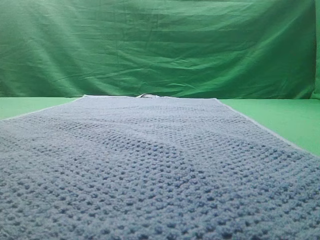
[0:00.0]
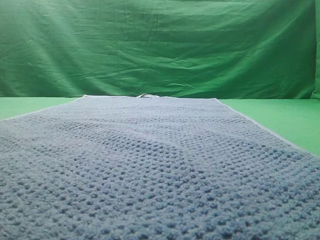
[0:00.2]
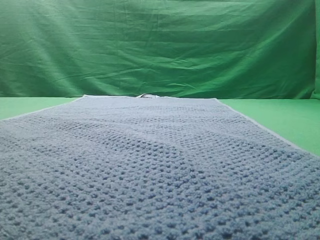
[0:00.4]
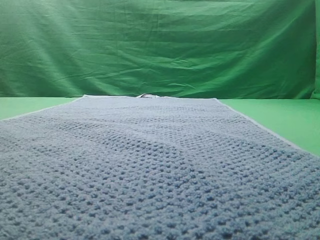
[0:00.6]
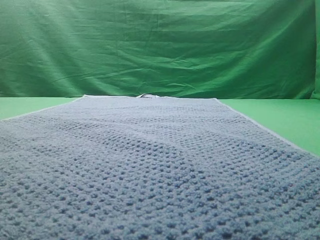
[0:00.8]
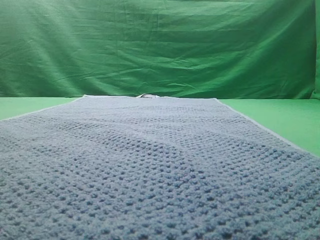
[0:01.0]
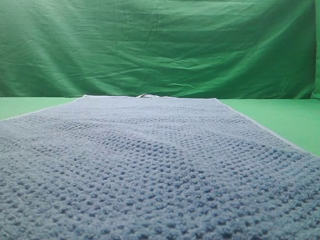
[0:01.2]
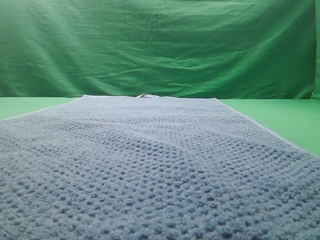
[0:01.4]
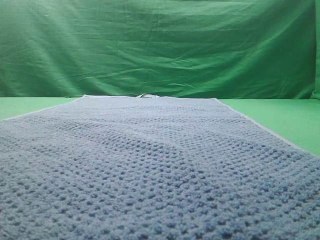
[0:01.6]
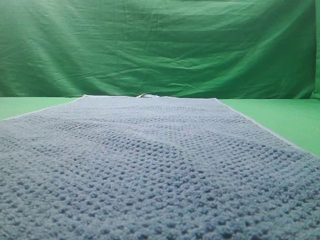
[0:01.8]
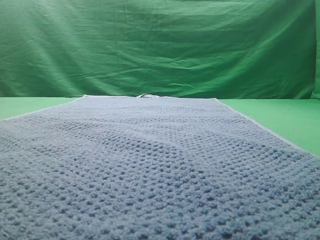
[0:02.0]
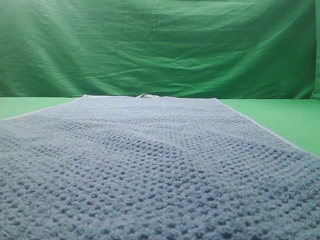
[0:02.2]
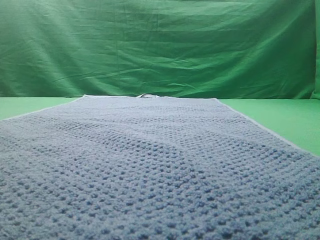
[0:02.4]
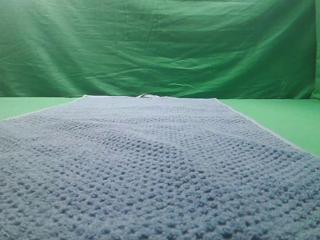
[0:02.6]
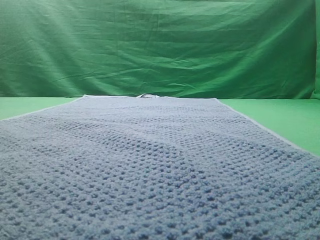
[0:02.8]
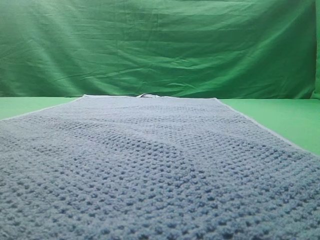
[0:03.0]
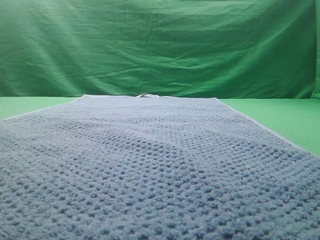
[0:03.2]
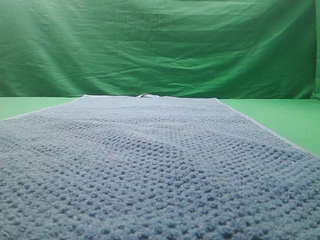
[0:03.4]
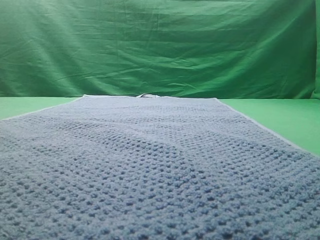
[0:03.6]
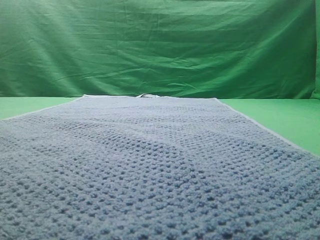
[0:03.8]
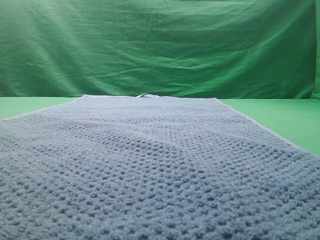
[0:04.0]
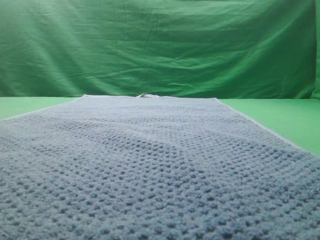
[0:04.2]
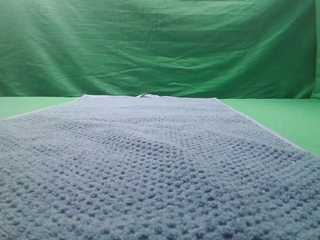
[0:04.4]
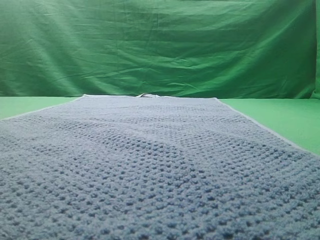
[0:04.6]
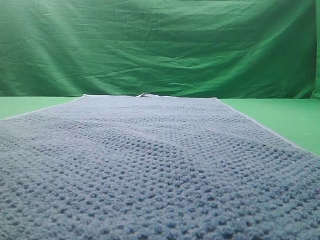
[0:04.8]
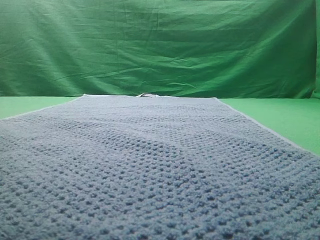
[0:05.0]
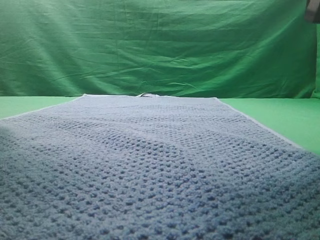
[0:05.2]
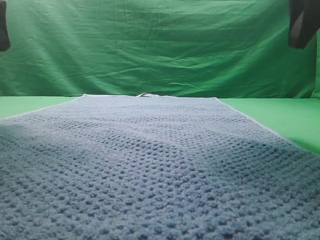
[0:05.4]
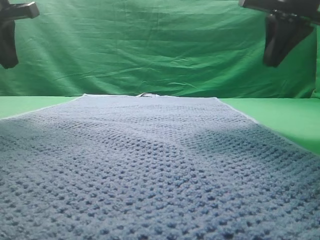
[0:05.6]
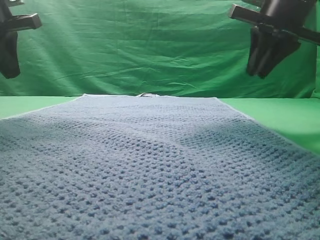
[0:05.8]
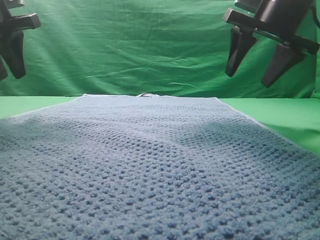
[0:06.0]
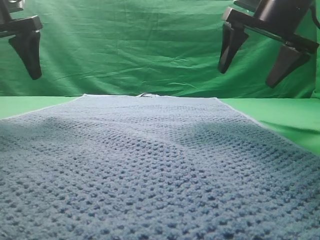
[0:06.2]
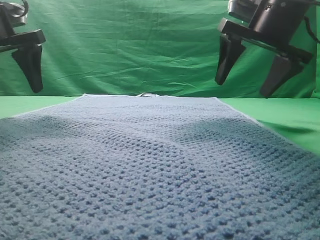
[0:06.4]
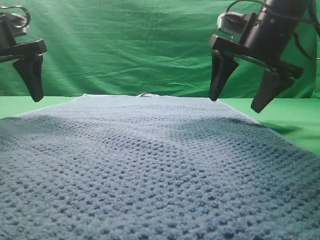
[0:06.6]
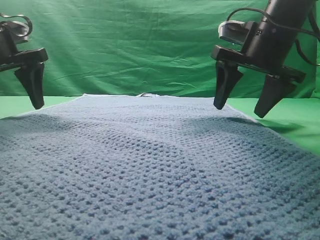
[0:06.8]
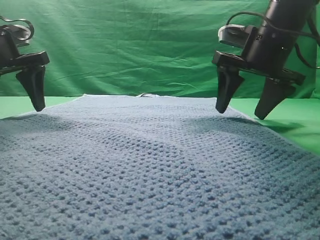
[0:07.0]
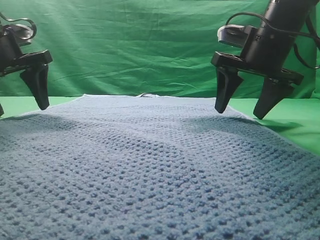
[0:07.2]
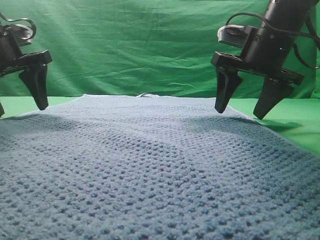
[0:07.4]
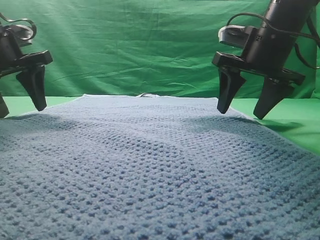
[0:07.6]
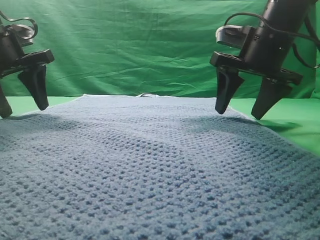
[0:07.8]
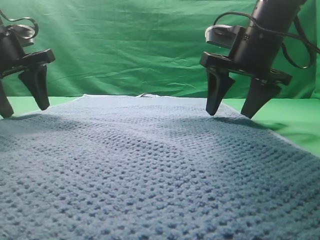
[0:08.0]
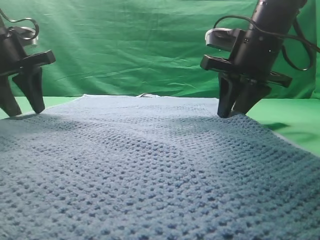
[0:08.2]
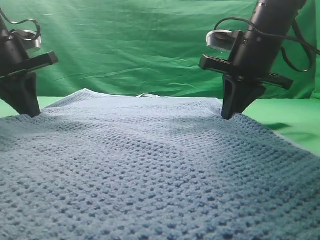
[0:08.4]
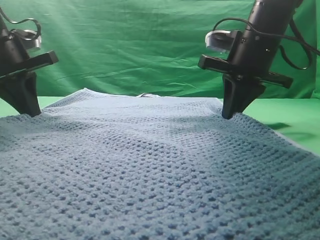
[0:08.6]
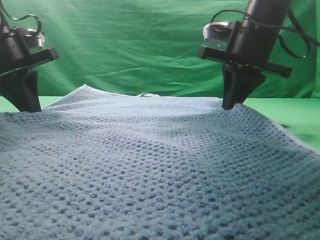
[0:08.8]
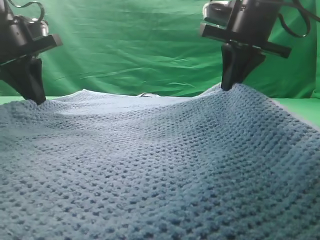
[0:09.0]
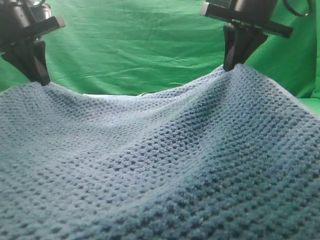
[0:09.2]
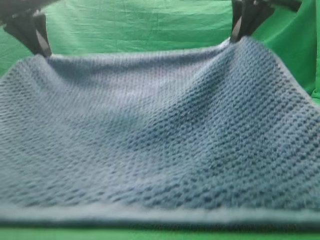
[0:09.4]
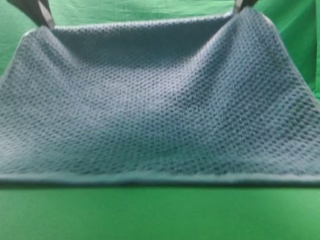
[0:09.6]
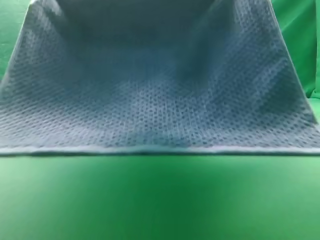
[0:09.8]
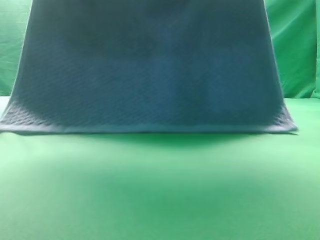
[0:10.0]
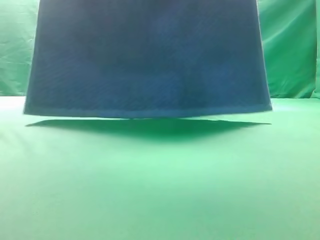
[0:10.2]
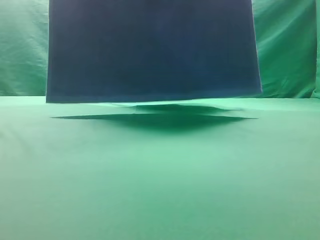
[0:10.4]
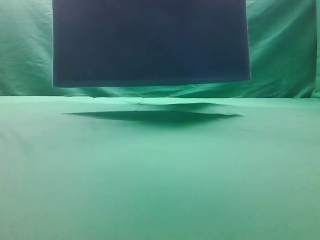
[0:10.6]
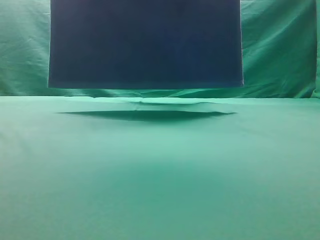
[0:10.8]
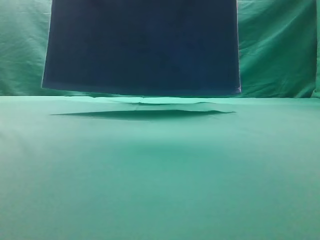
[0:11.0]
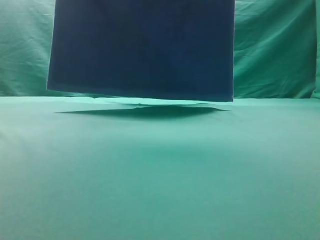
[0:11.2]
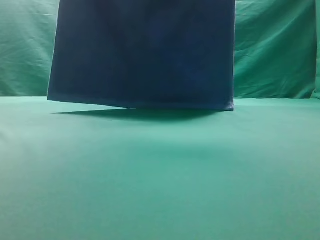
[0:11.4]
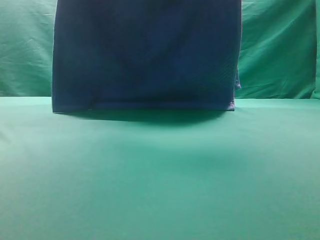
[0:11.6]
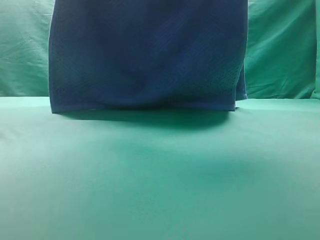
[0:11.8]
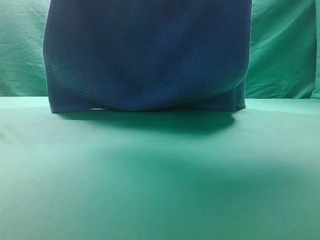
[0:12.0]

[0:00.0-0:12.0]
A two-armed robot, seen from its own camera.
Task of the whole recording: fold the towel on the table twice.
Step, 0:00.0 to 0:10.6: pick up the towel with two arm.

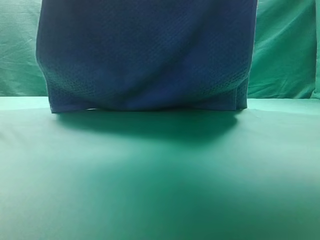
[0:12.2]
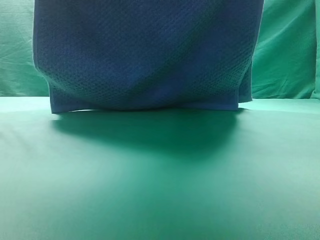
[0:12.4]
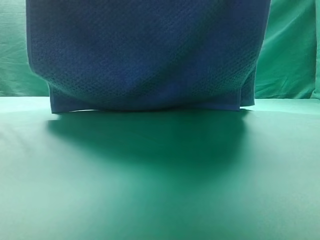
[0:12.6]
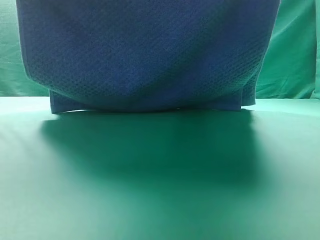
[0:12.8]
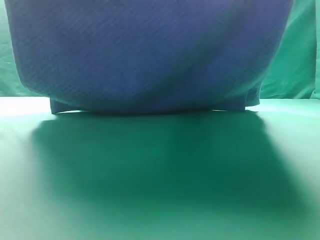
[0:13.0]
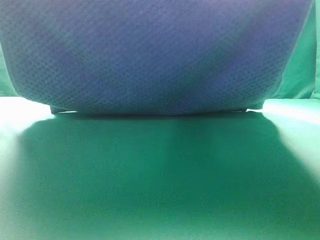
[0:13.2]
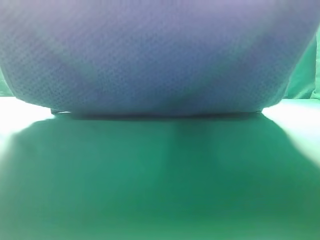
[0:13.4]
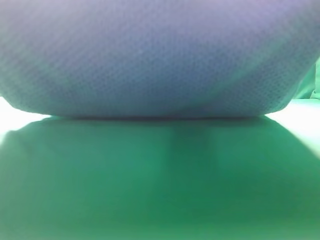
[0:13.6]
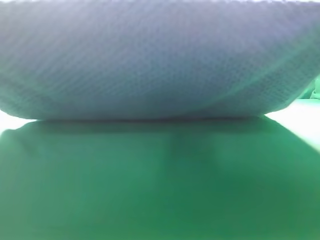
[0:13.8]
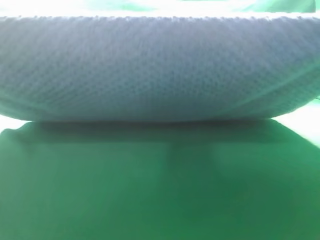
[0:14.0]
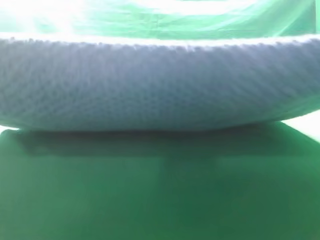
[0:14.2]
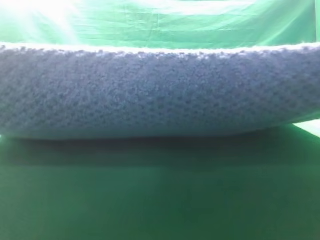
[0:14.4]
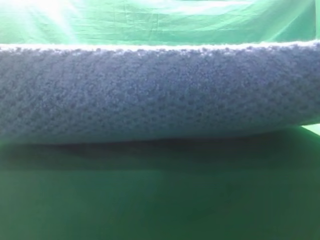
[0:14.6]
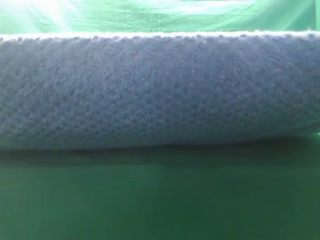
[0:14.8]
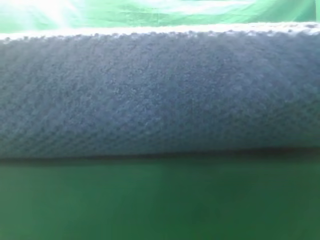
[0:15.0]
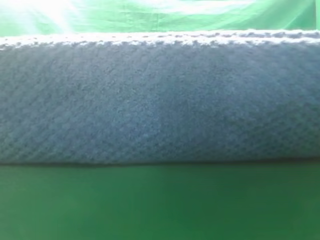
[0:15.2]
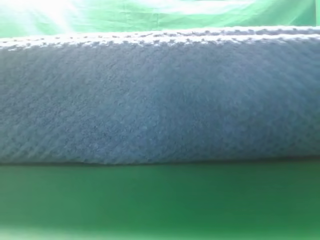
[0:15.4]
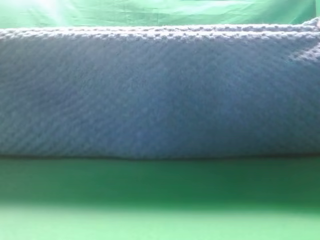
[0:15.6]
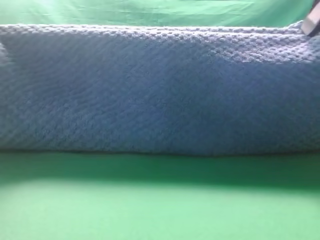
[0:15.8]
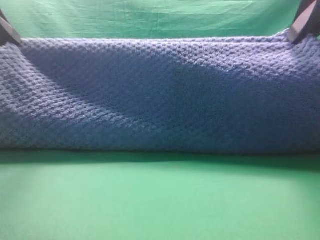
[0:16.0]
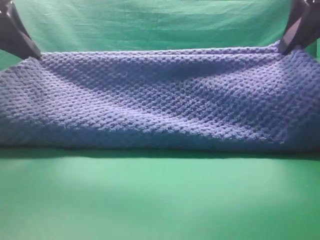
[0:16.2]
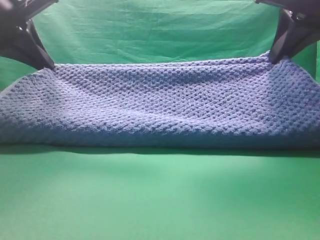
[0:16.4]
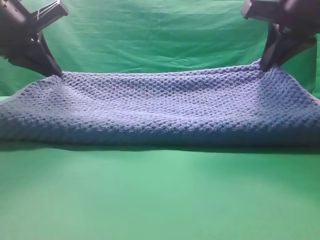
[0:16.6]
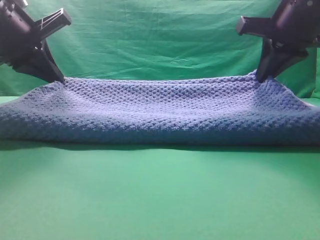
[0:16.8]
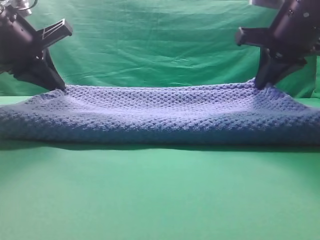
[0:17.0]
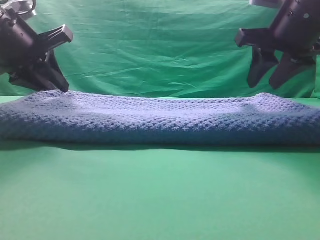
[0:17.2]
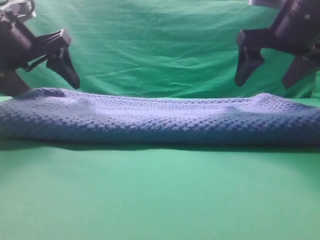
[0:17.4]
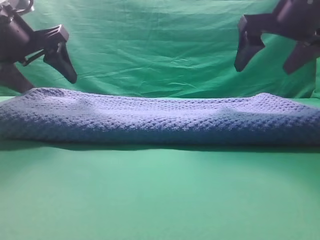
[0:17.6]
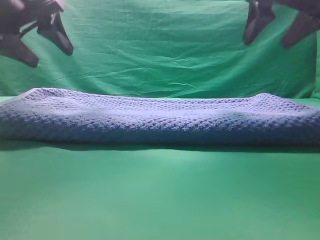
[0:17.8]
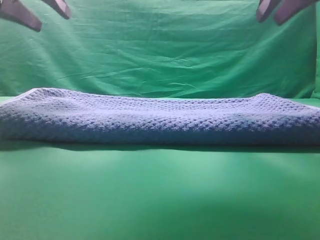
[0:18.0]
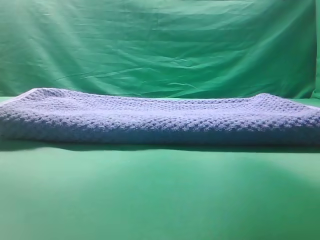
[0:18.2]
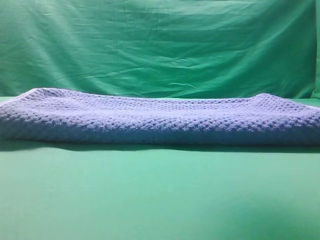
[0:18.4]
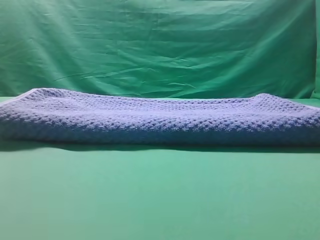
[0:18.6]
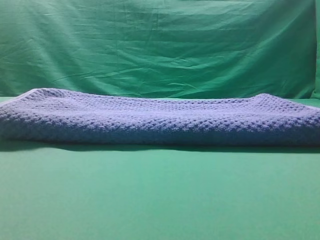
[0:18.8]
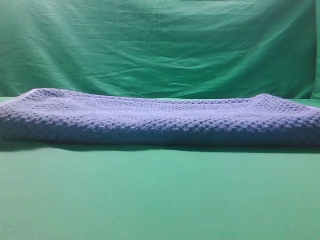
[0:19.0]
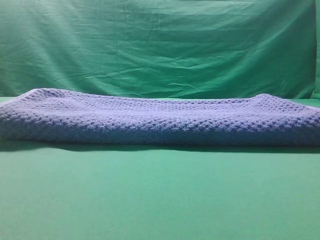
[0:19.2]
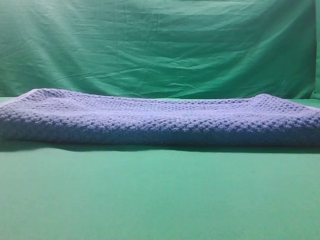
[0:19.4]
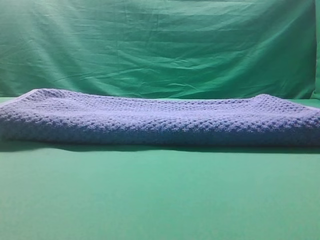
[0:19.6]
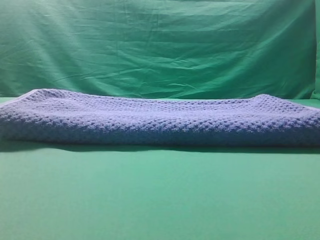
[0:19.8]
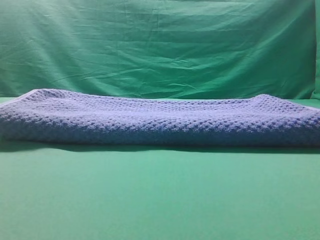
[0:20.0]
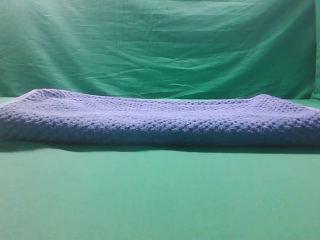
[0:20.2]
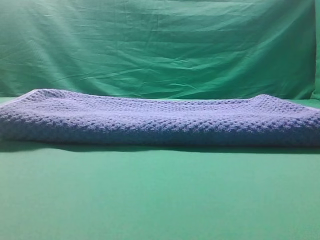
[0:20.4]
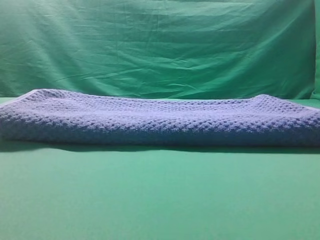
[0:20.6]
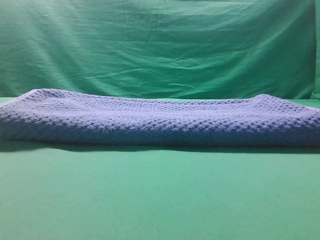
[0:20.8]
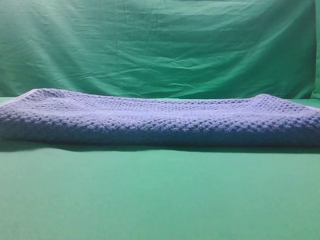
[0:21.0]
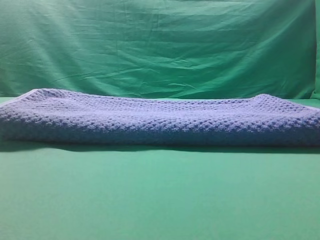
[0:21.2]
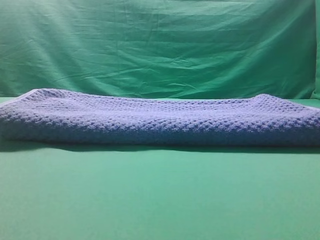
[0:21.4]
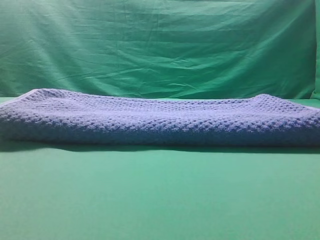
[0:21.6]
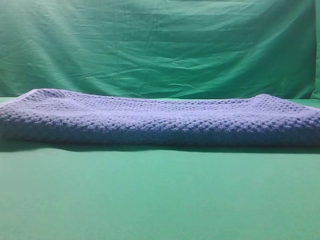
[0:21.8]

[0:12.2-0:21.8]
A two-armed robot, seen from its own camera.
Task of the whole recording: fold the towel on the table twice.
Step, 0:12.2 to 0:17.6: Fold the towel twice on the table.
